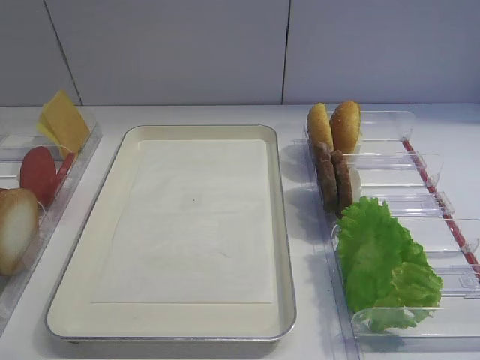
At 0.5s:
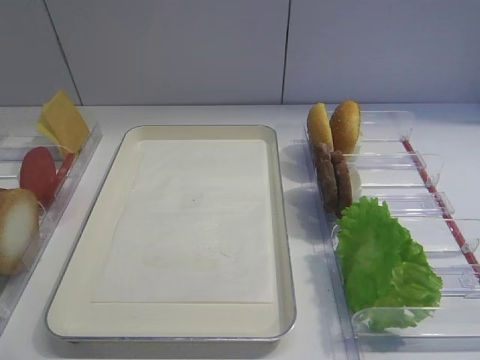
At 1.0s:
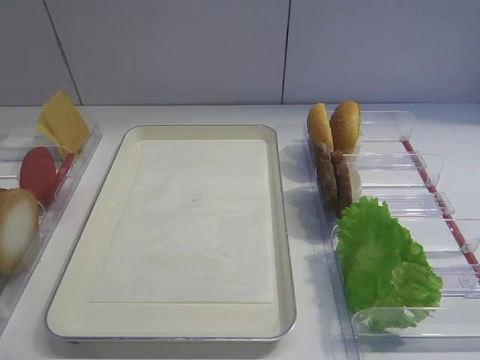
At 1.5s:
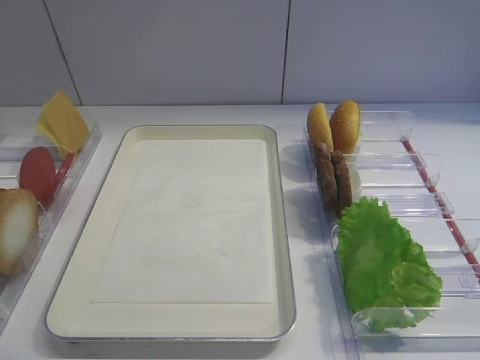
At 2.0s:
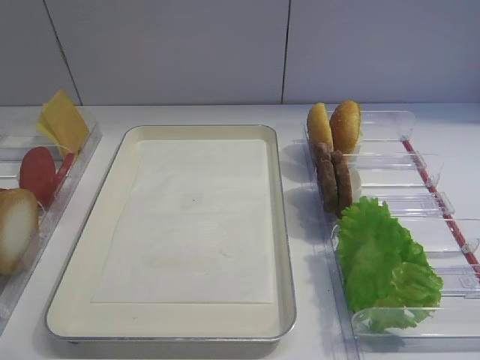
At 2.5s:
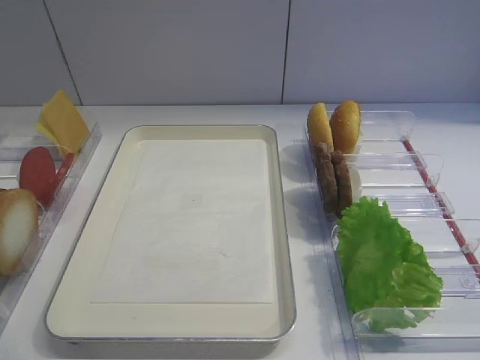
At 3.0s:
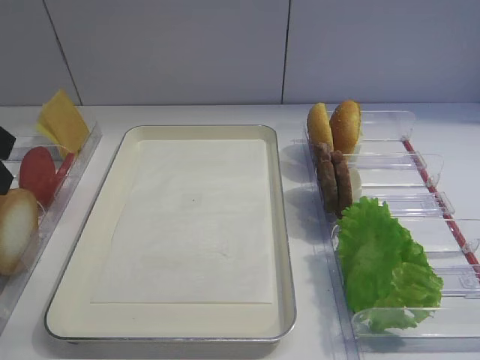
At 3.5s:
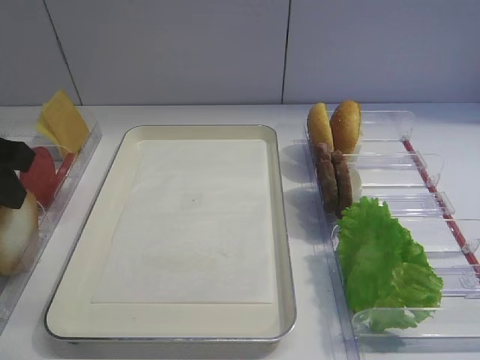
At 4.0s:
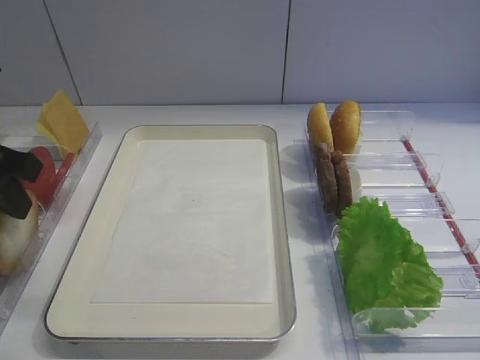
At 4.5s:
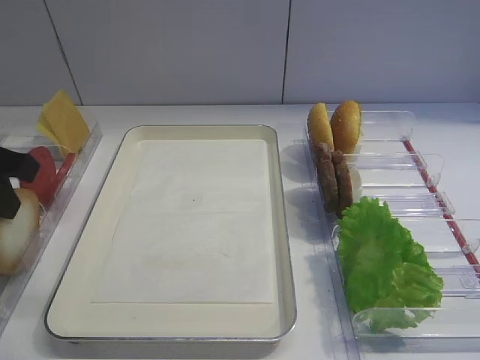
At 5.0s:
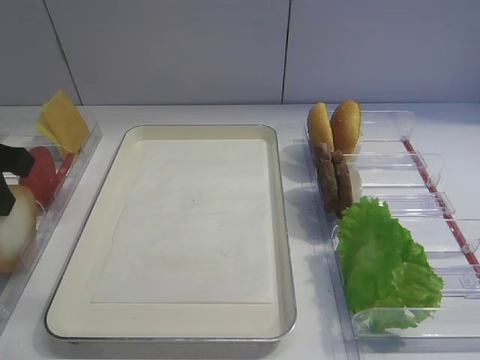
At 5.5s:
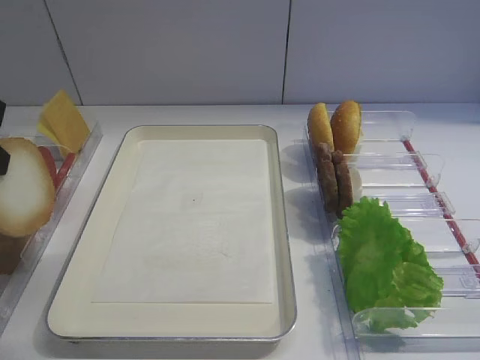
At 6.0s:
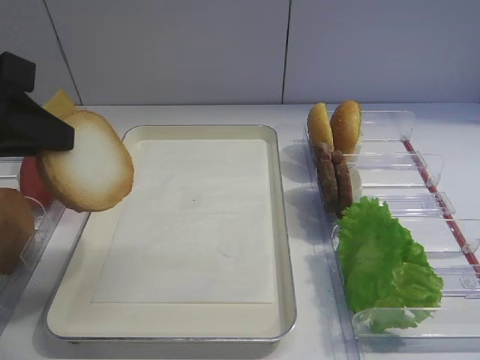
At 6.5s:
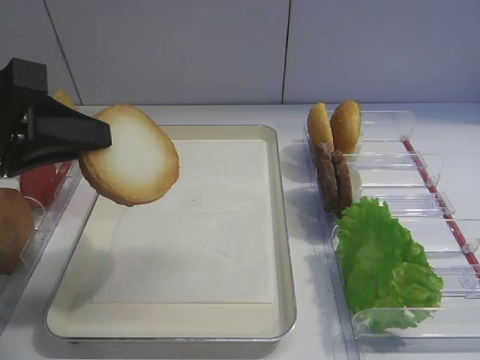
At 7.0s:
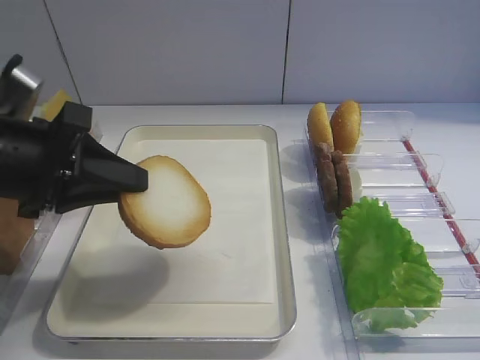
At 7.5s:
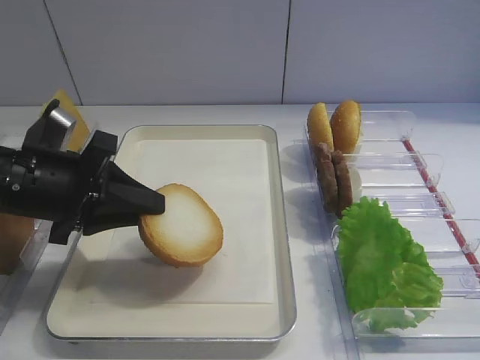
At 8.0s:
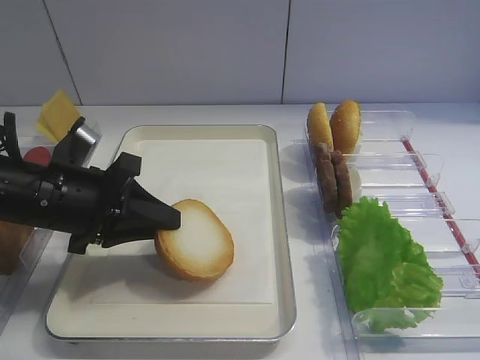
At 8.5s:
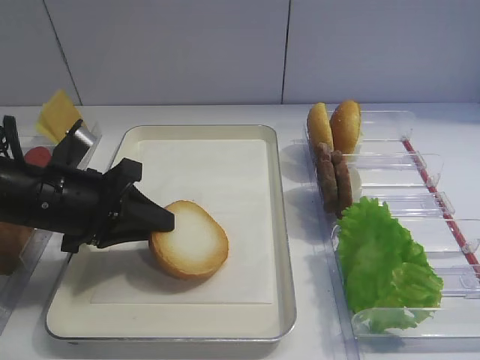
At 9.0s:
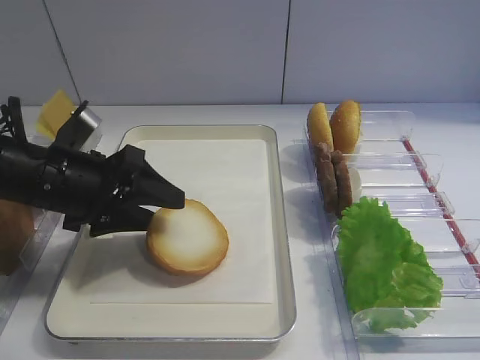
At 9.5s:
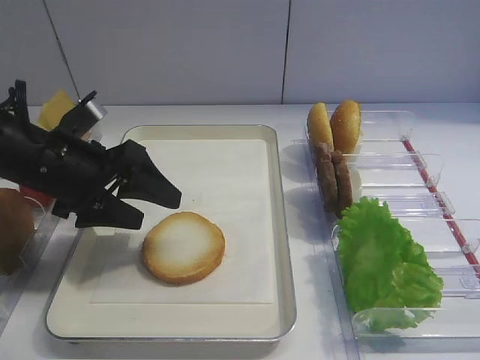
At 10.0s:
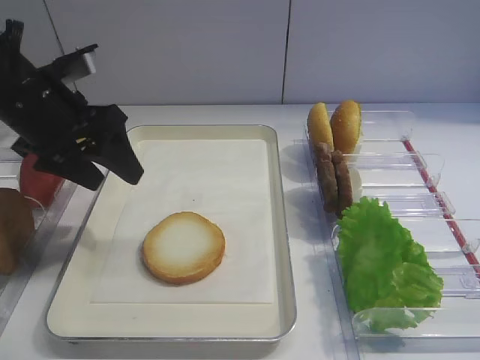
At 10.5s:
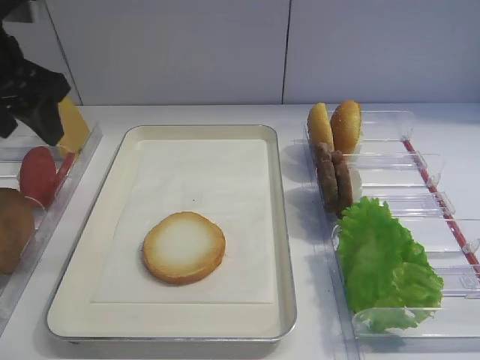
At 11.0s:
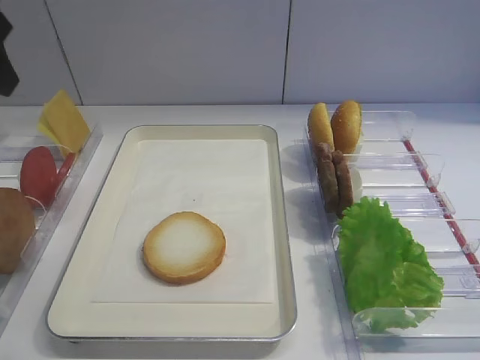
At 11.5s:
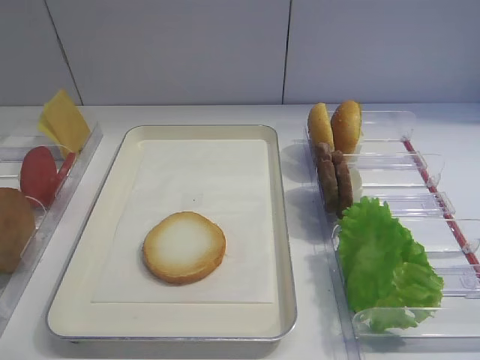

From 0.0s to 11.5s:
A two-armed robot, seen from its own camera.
Step, from 5.5s to 9.5s: Place the bread slice on the tray with the left gripper.
From 2.0s to 4.0s: The left gripper moves forward, approximately 20 cm, and closes its fingers.
From 4.0s to 6.0s: The left gripper moves upward, roughly 5 cm, and closes.
From 6.0s to 7.5s: The left gripper heads downward, covering roughly 10 cm.
From 7.5s to 9.5s: The left gripper opens.
From 9.5s to 11.5s: The left gripper travels upward and backward by approximately 30 cm.

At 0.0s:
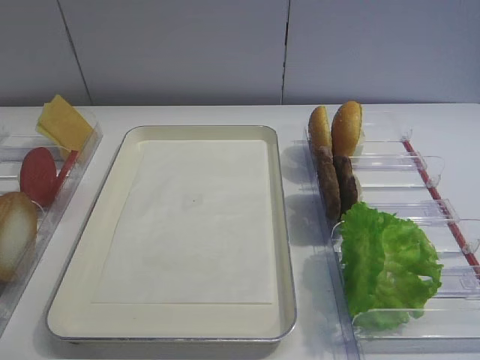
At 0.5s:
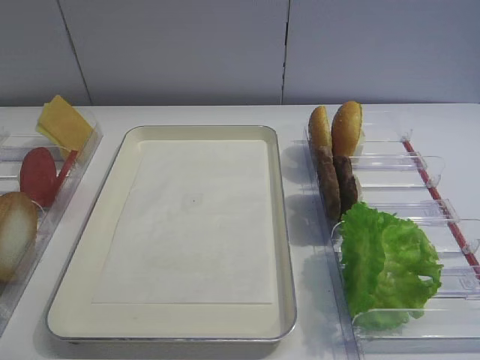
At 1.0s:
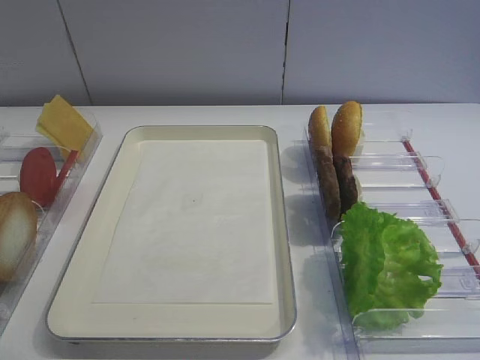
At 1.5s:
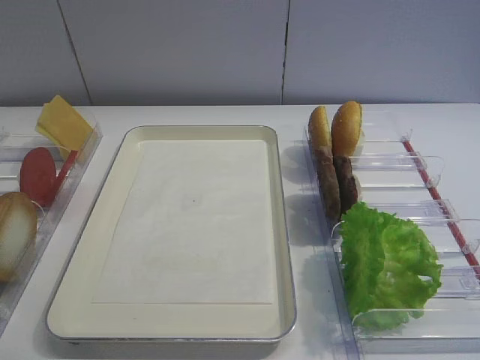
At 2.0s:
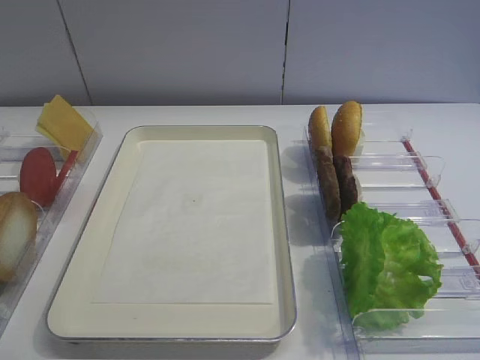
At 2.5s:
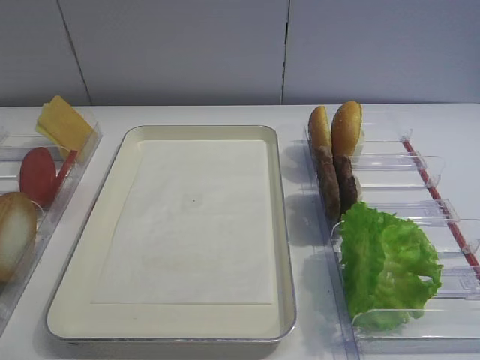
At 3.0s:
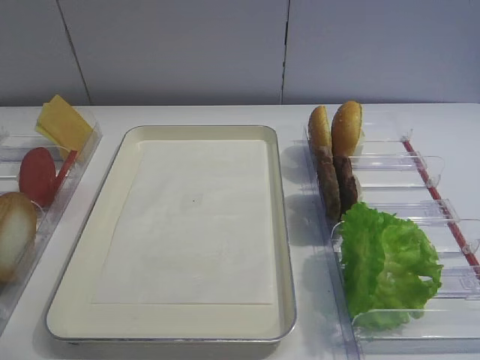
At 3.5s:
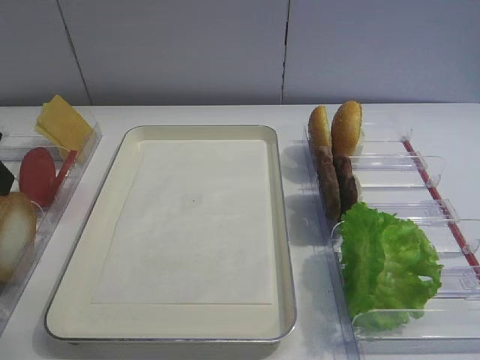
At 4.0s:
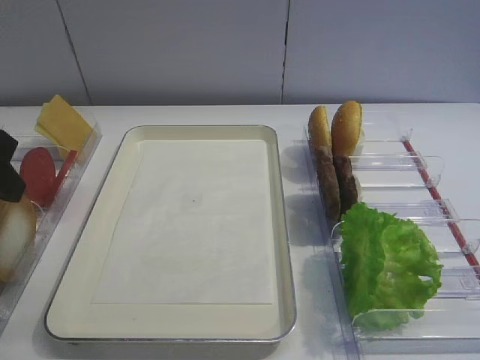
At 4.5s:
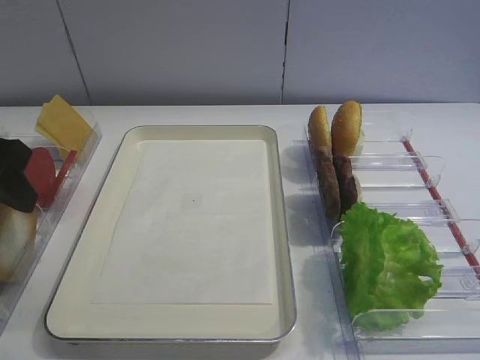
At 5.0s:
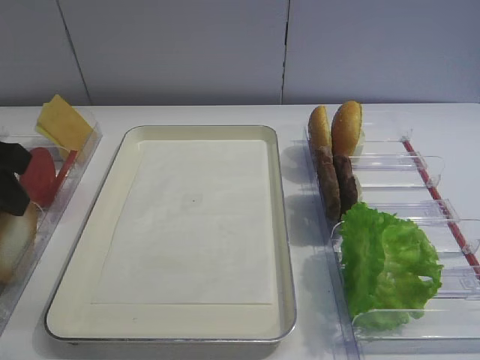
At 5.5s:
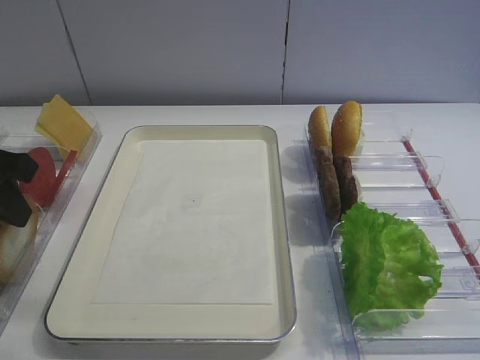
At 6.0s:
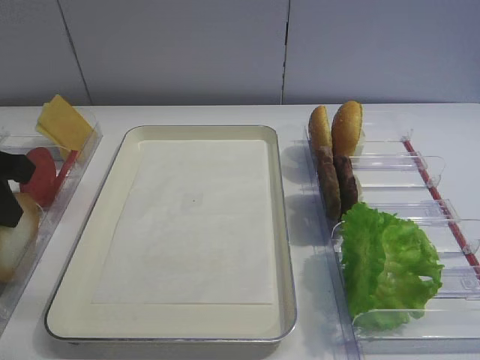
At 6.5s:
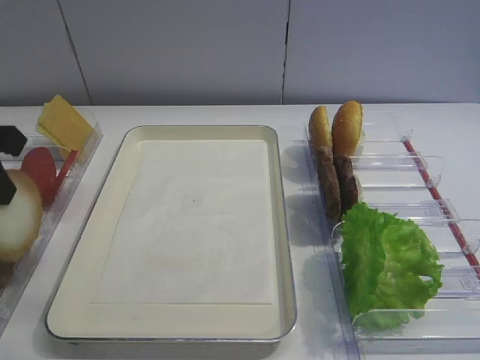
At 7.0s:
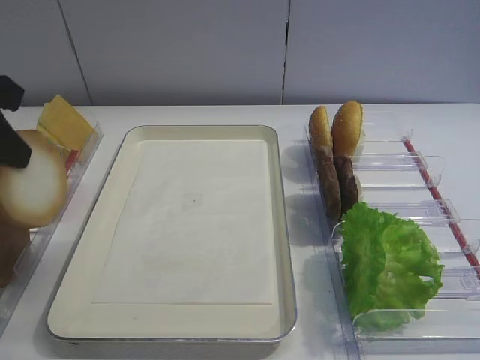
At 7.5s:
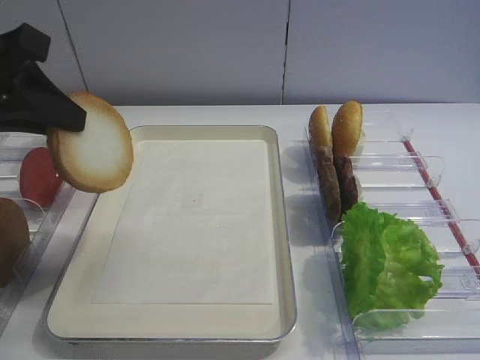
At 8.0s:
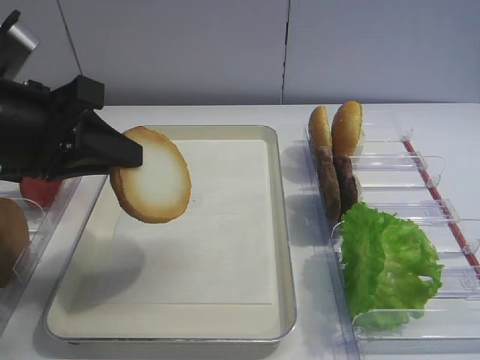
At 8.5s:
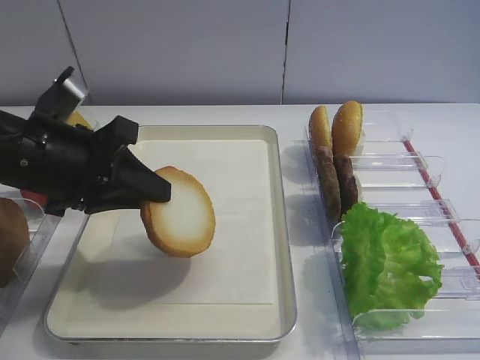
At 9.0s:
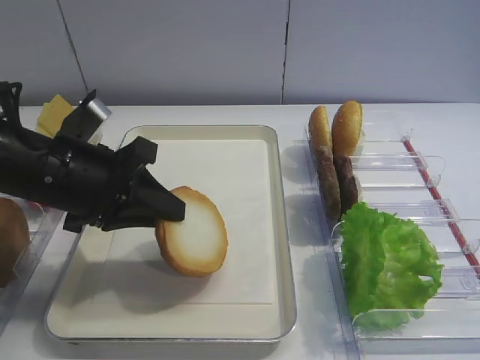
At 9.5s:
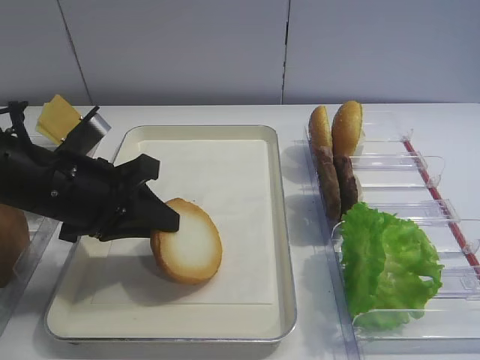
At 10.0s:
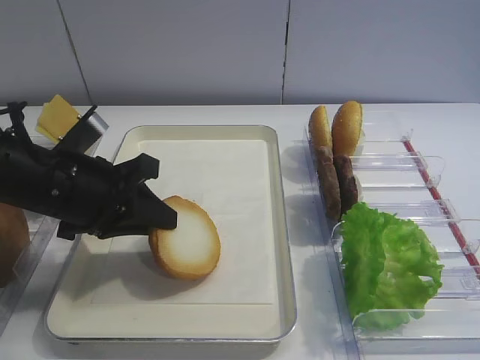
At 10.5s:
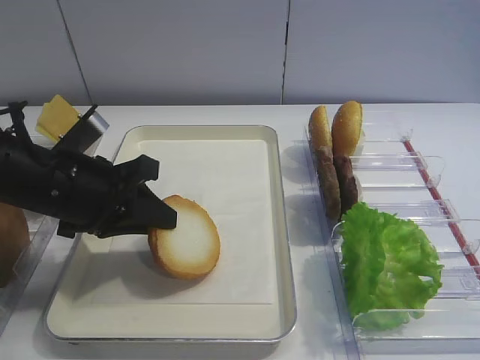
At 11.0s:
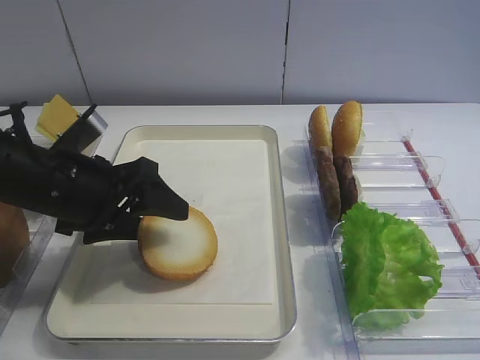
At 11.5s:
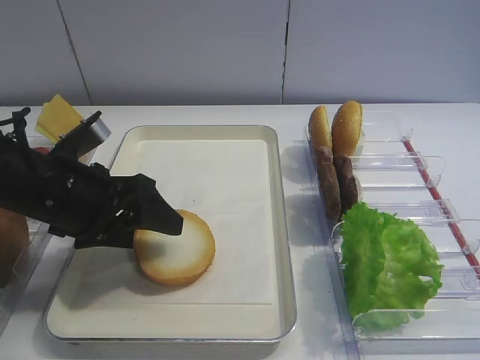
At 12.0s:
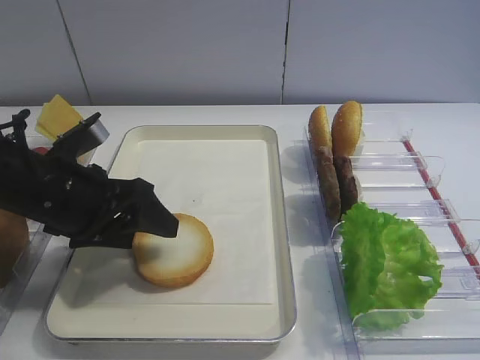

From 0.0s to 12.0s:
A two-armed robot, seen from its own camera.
Step, from 0.0s to 6.5s: Pick up the bread slice with the left gripper.
From 2.0s to 4.0s: The left gripper heads forward, covering approximately 25 cm.
From 4.0s to 6.0s: The left gripper closes.
From 6.0s to 8.0s: The left gripper moves to the right, some 10 cm.
From 8.0s to 10.0s: The left gripper goes roughly 10 cm downward.
From 10.0s to 12.0s: The left gripper opens its fingers.

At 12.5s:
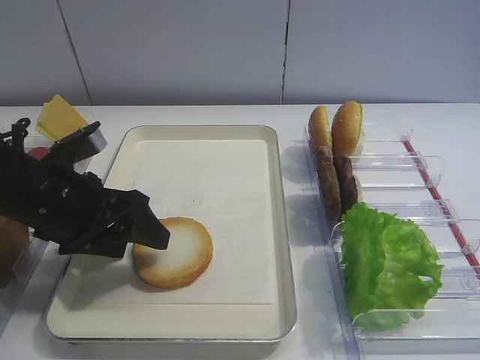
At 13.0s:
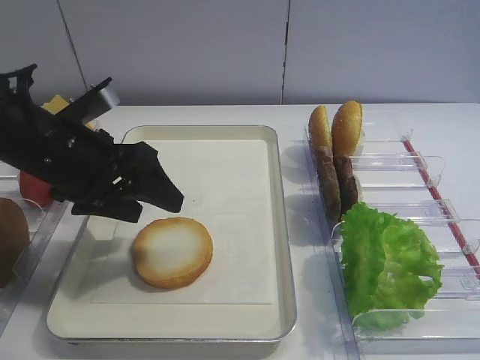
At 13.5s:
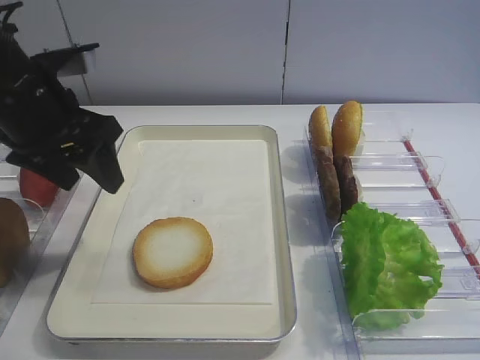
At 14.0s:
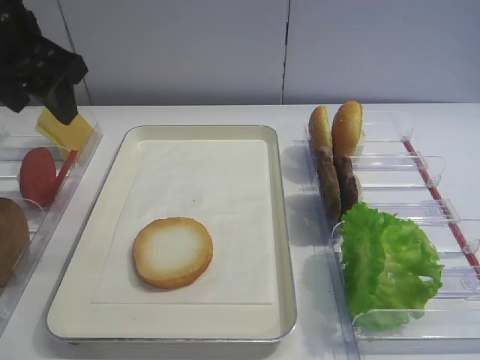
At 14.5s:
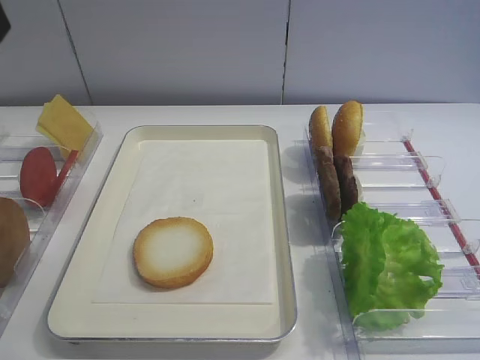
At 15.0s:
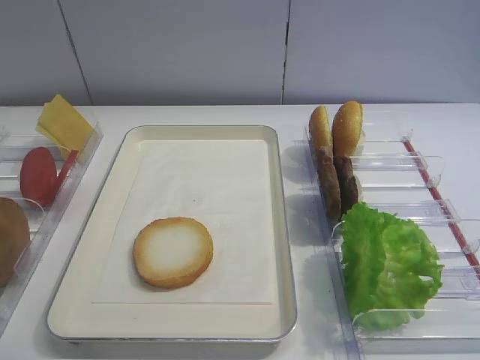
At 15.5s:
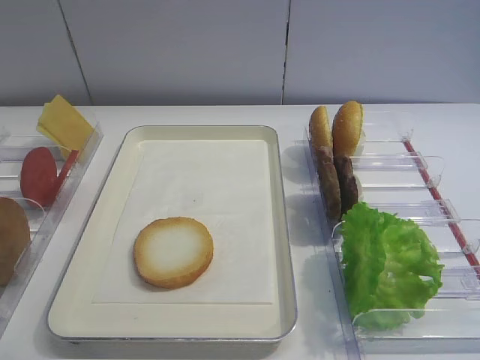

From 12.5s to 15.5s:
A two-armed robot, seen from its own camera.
From 12.5s to 14.0s: The left gripper goes about 15 cm upward.
From 14.0s to 15.5s: The left gripper is displaced backward by about 30 cm.
